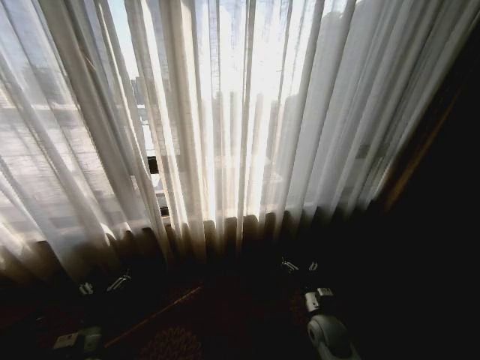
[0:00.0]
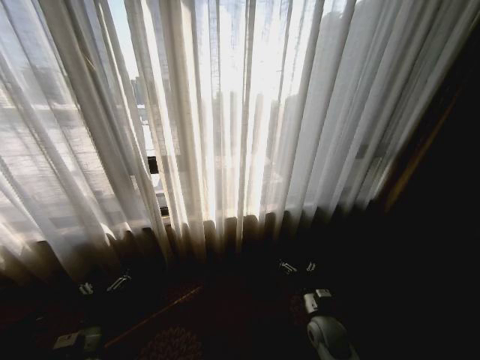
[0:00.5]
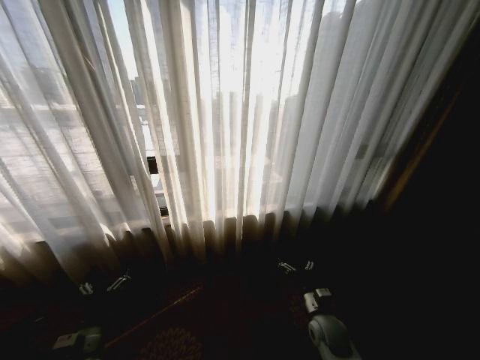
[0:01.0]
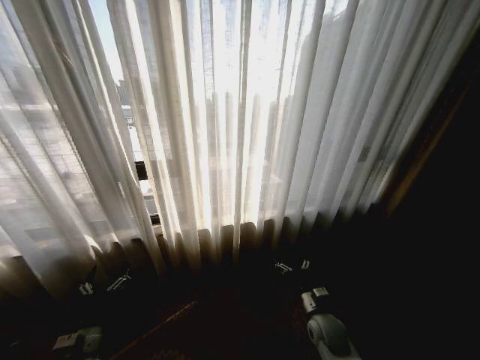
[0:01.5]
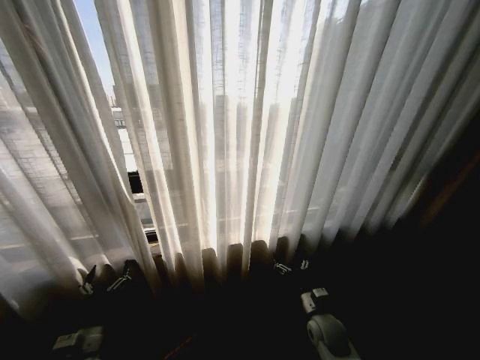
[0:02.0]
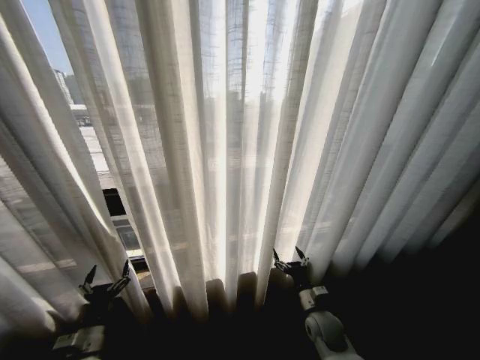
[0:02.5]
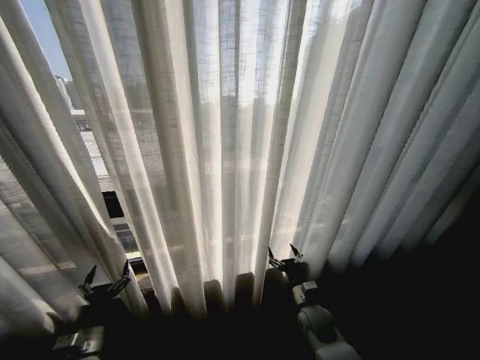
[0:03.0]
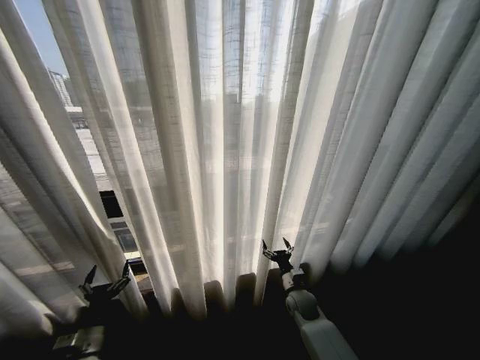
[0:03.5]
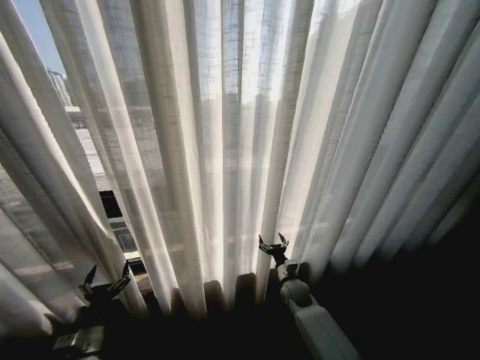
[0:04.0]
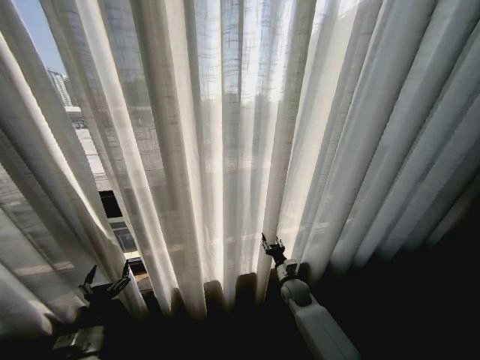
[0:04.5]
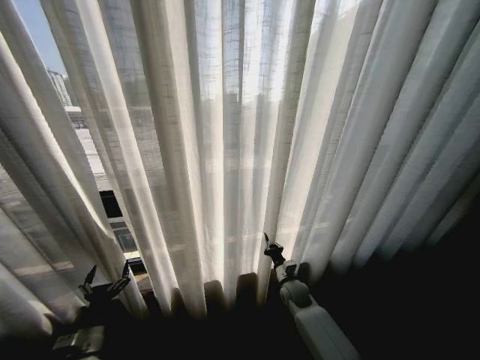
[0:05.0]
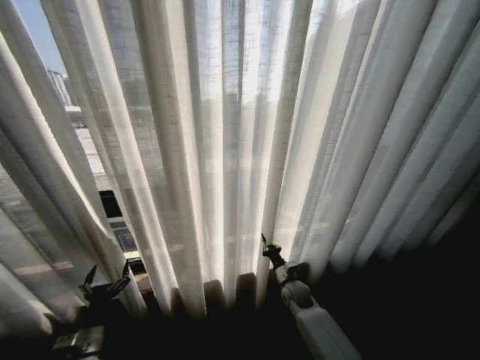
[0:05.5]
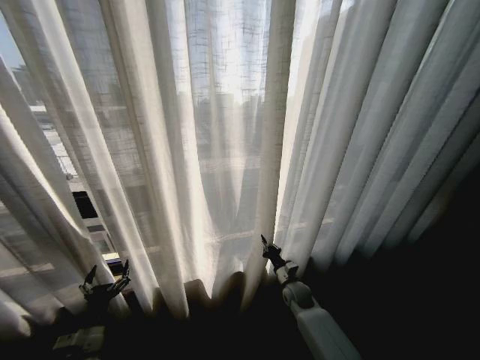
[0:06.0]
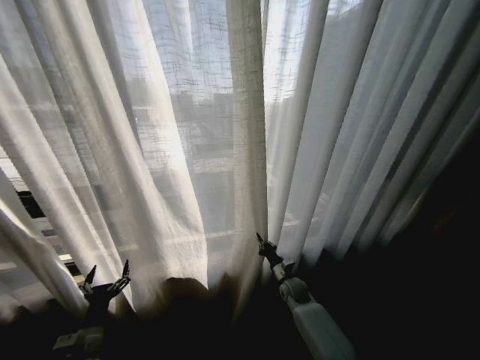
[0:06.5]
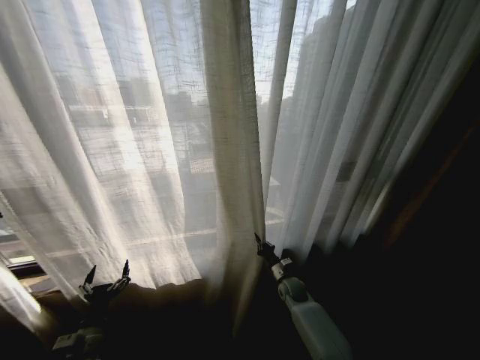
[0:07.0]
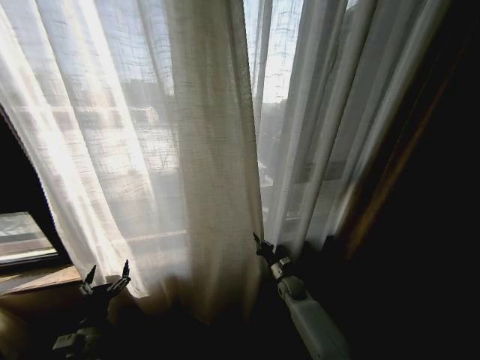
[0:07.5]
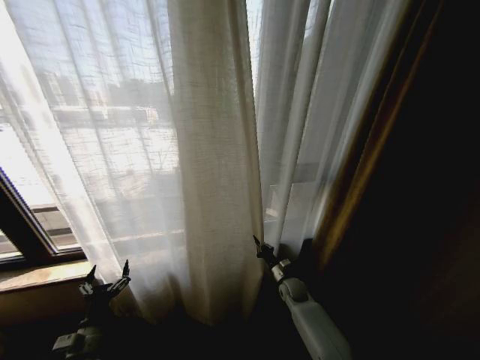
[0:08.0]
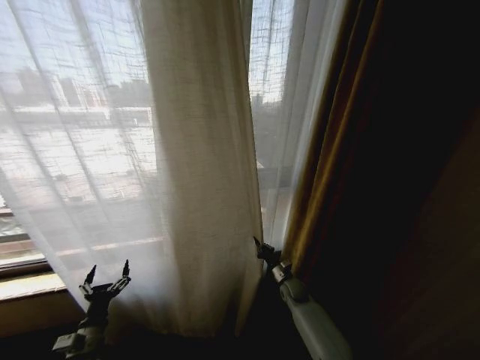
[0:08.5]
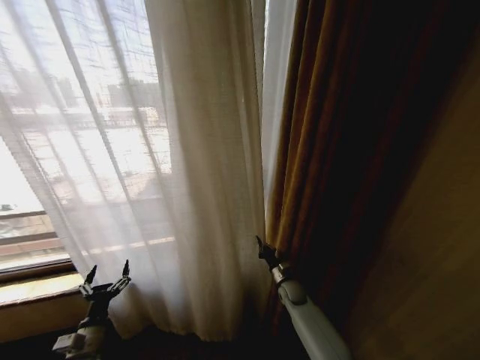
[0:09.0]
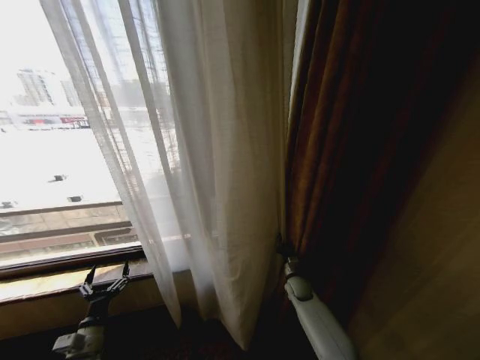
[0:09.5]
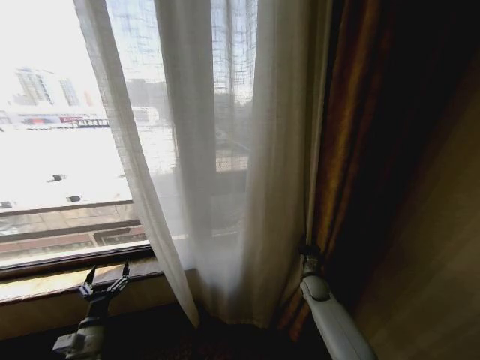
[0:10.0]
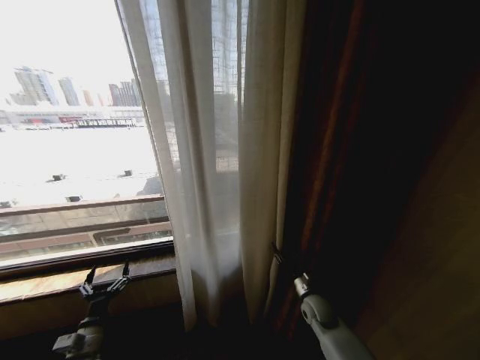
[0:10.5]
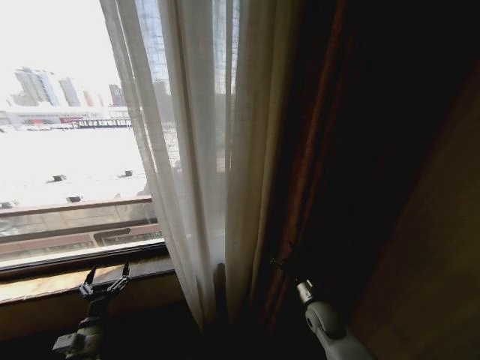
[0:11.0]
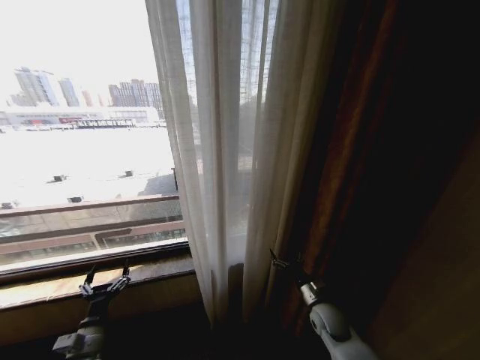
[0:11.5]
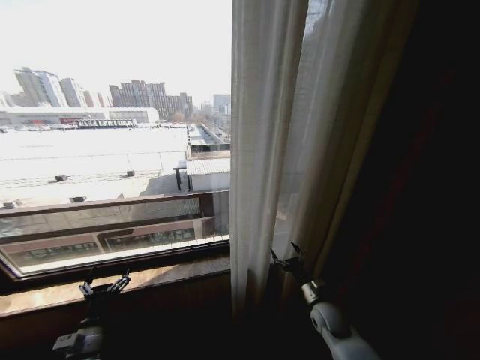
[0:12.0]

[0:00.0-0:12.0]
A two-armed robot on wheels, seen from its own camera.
Task of the whole recording: Open the curtains by pulling them apart, changing their state from closed to fully open.
0:02.0 to 0:04.0: The right gripper goes roughly 10 cm forward.
0:04.0 to 0:06.0: The right gripper closes.
0:08.0 to 0:10.0: The right gripper travels to the right by some 10 cm.
0:10.0 to 0:12.0: The right gripper travels backward by approximately 10 cm, and opens up.

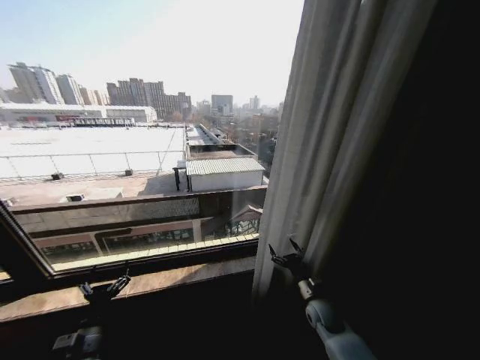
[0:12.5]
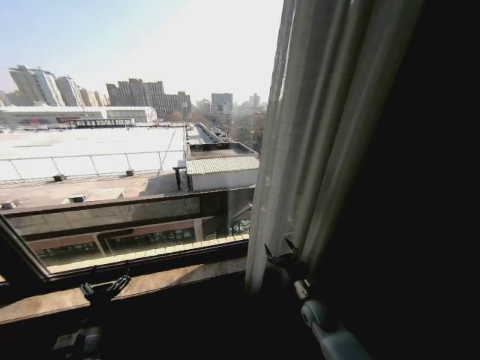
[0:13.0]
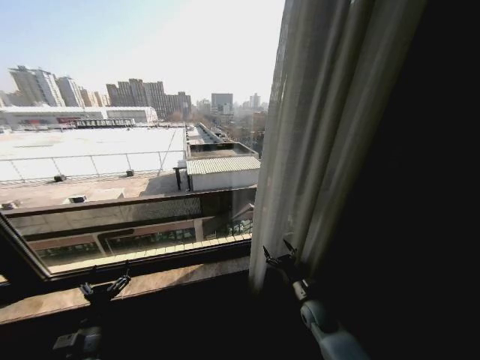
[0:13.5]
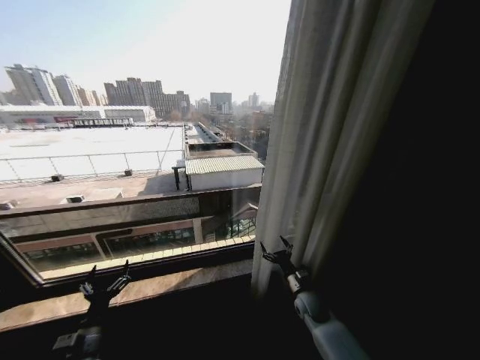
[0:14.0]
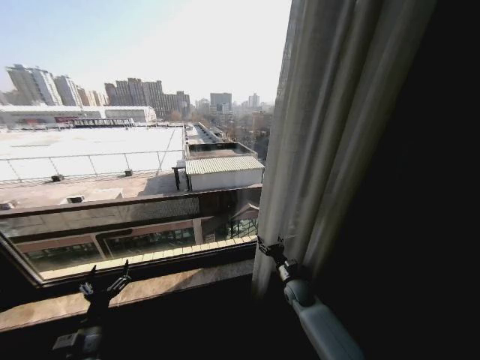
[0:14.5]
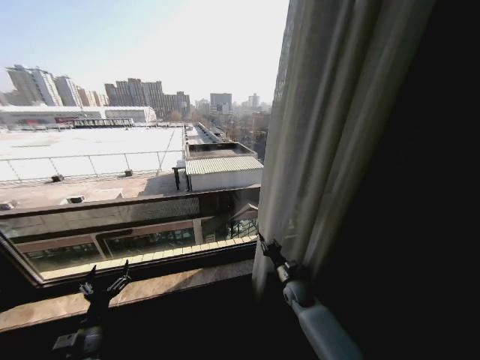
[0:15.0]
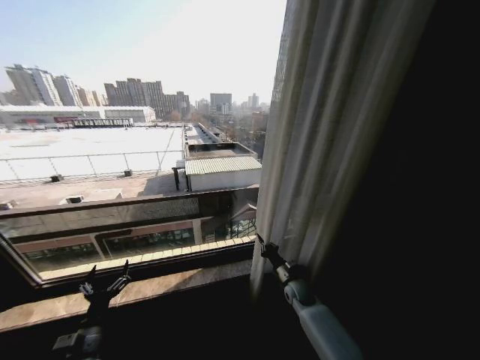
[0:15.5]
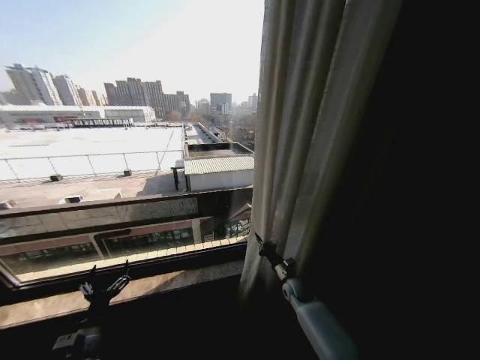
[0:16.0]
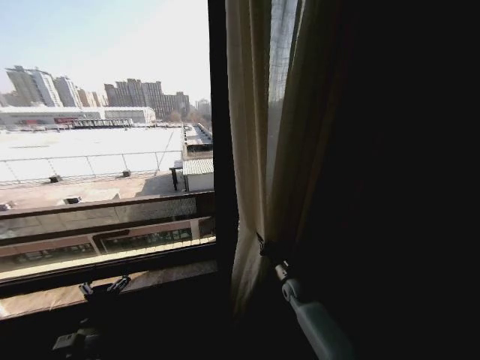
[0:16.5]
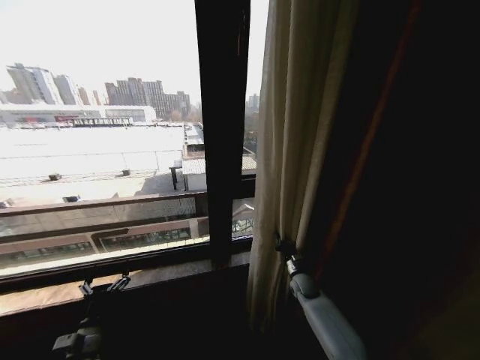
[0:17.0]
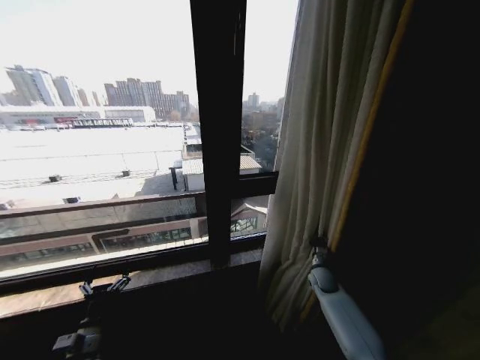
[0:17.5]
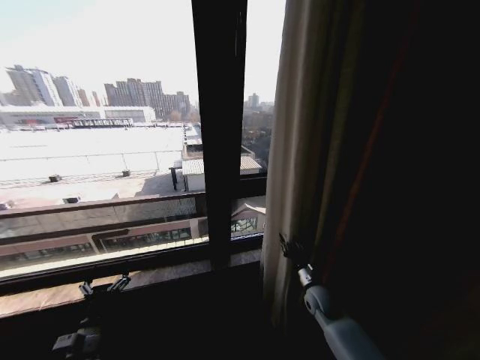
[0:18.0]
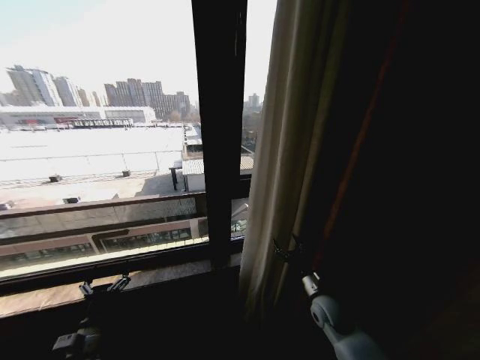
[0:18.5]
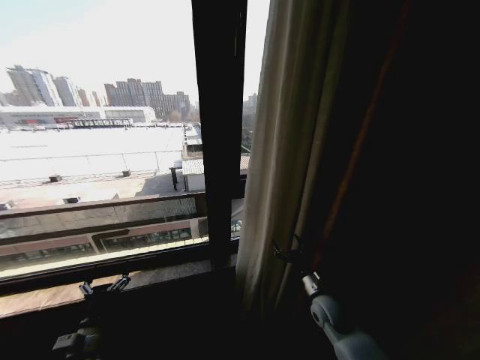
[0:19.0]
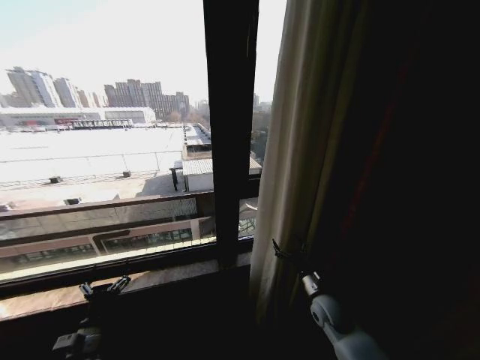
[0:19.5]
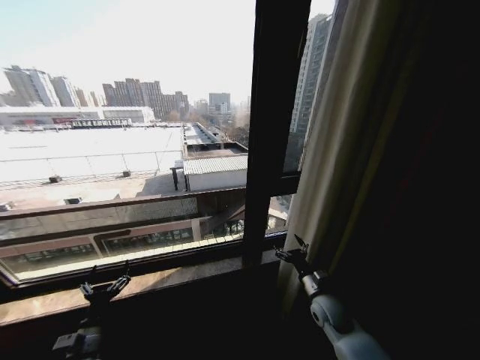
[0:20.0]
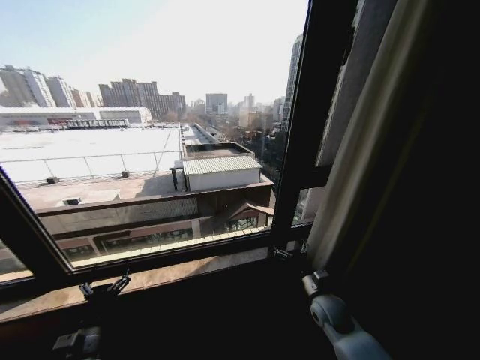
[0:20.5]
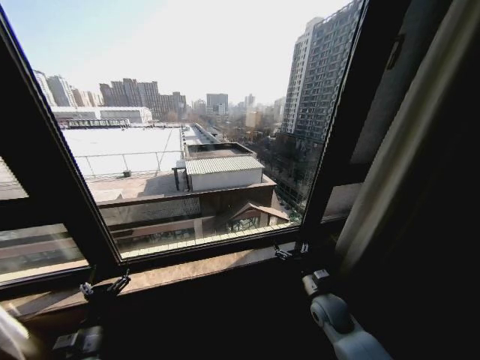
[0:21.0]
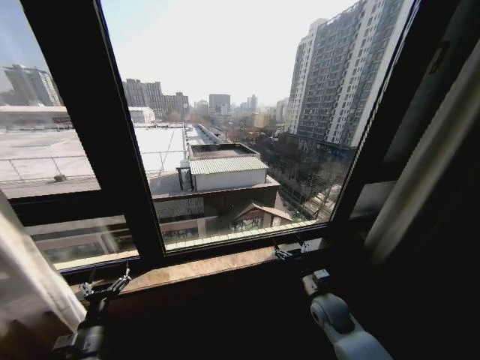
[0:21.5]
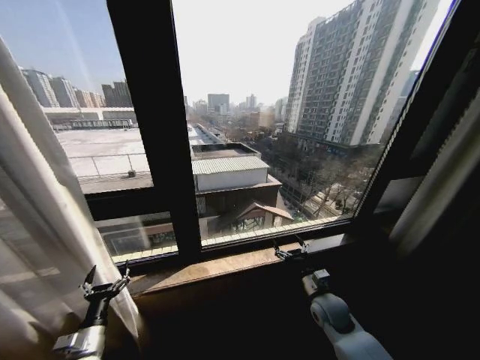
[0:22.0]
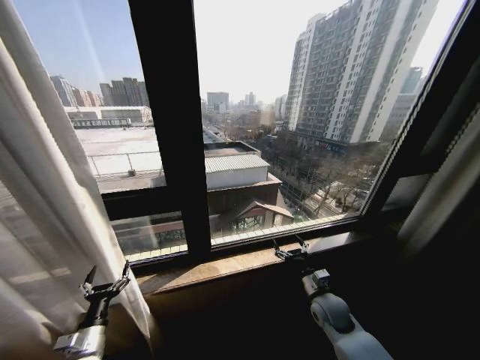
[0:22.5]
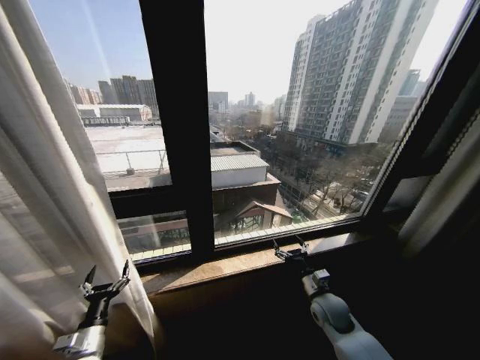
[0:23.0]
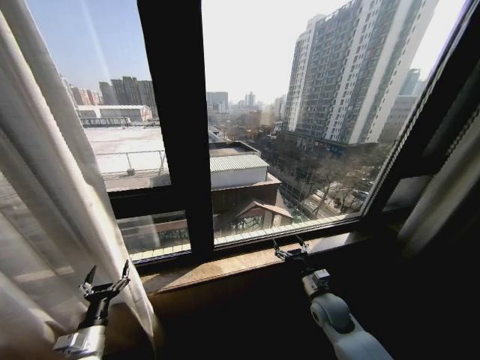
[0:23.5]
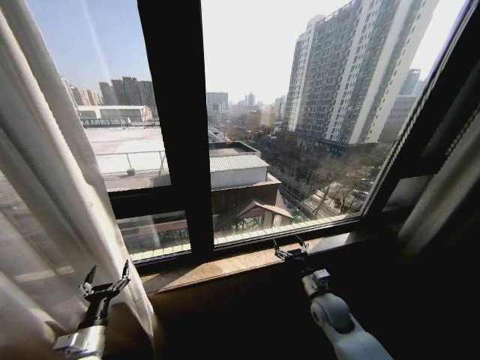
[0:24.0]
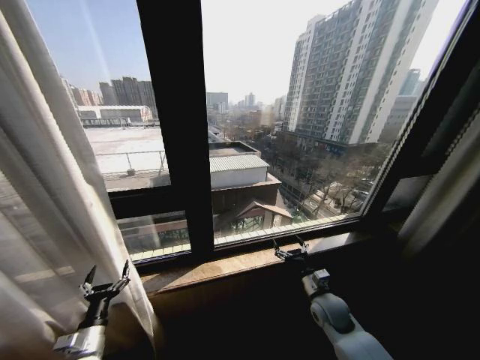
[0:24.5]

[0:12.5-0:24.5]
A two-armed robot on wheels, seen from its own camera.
Task of the whole recording: Open the curtains by pulling them apart, changing their state from closed to fully open.
0:12.5 to 0:14.5: The right gripper heads forward, covering roughly 5 cm.
0:14.5 to 0:16.5: The right gripper closes up.
0:16.5 to 0:18.5: The right gripper goes approximately 15 cm backward and upward, and opens.
0:22.5 to 0:24.5: Both grippers stay put.

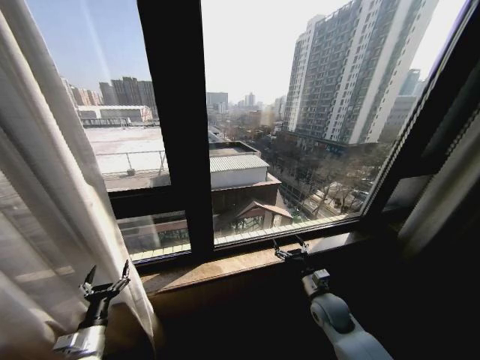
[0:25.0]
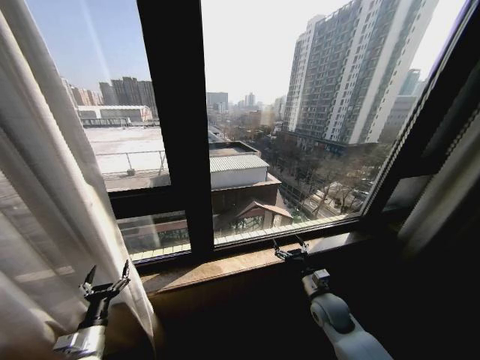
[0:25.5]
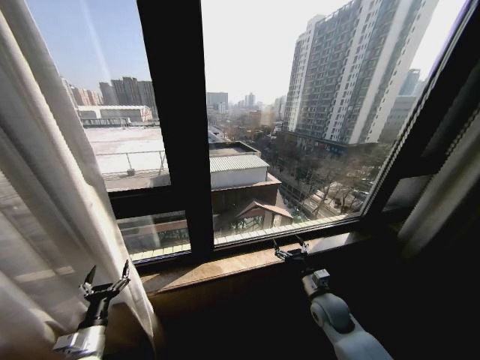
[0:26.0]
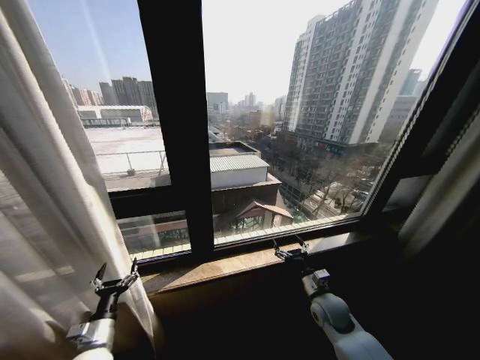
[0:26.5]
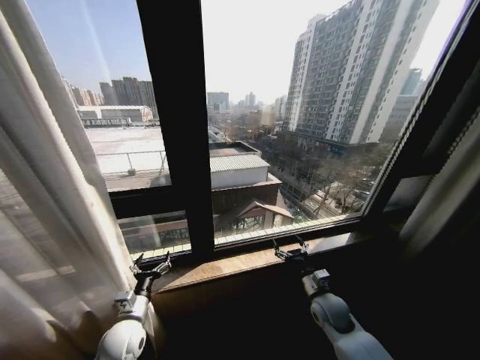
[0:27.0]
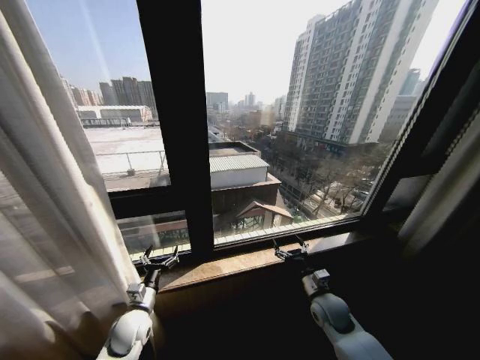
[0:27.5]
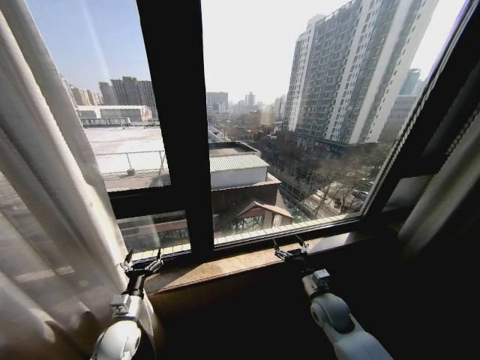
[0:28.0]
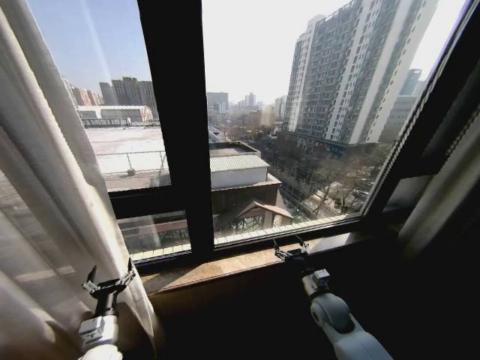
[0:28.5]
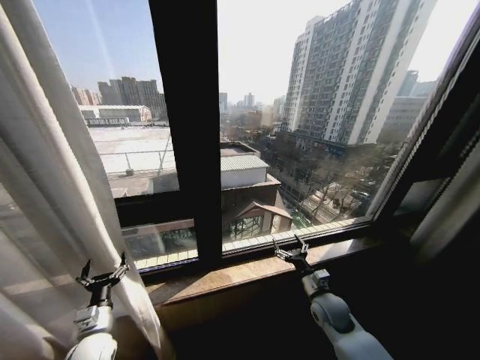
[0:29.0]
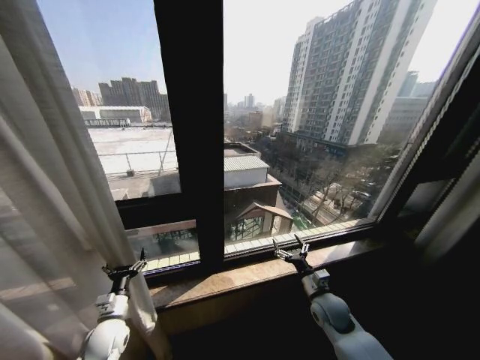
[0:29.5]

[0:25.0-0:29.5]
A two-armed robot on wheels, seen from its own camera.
Task of the whole recording: Open the curtains by pulling them apart, changing their state from closed to fully open.
0:25.0 to 0:27.0: The left gripper moves to the right and forward, approximately 10 cm.
0:27.0 to 0:29.5: The left gripper shifts roughly 5 cm to the left, and goes backward and returns, roughly 5 cm each way.
